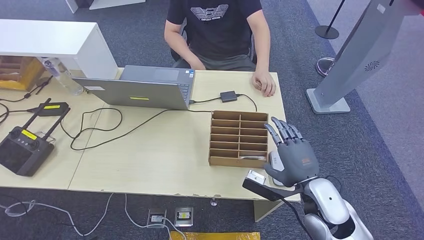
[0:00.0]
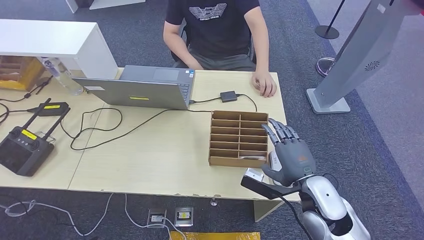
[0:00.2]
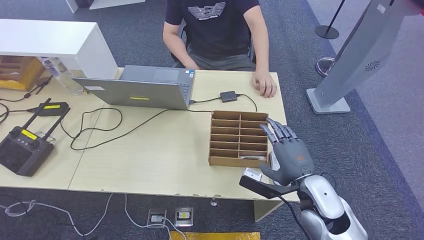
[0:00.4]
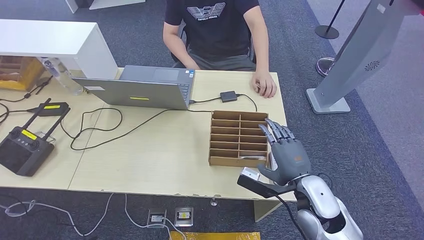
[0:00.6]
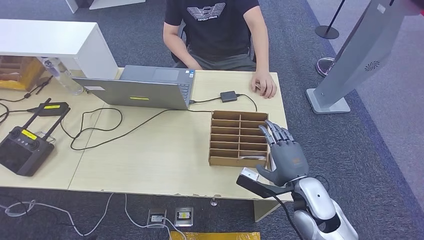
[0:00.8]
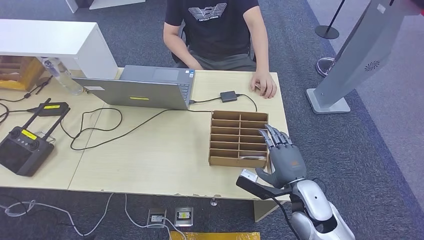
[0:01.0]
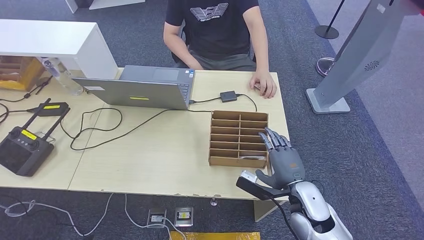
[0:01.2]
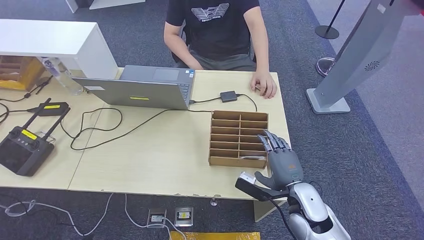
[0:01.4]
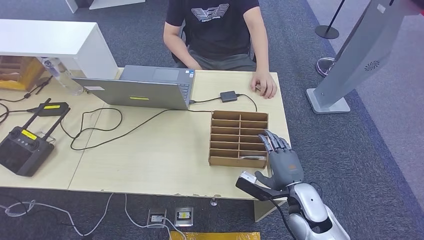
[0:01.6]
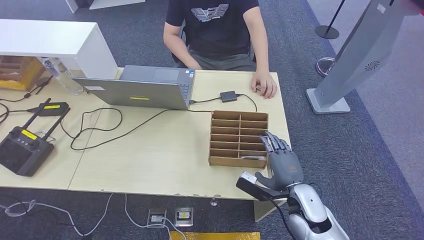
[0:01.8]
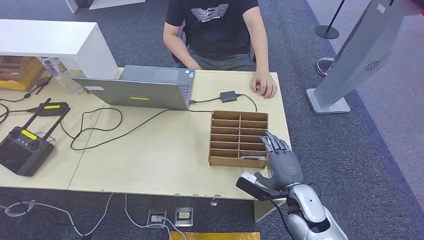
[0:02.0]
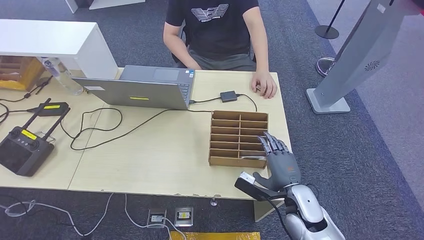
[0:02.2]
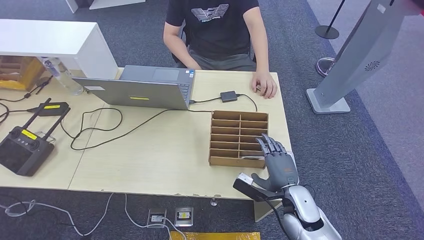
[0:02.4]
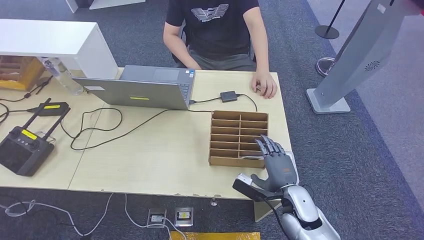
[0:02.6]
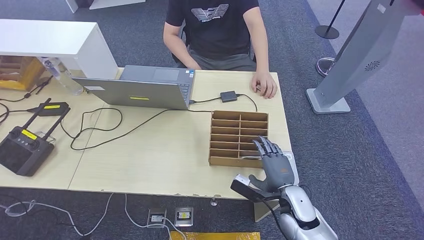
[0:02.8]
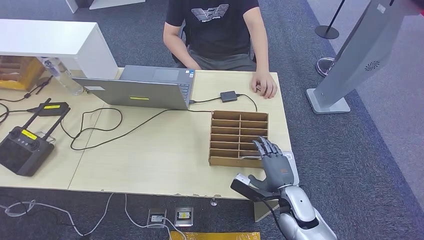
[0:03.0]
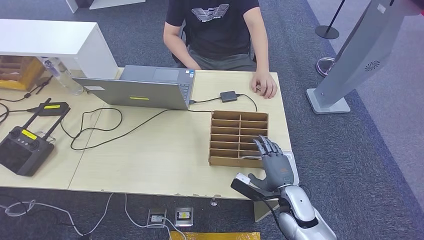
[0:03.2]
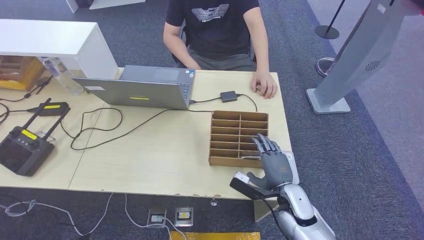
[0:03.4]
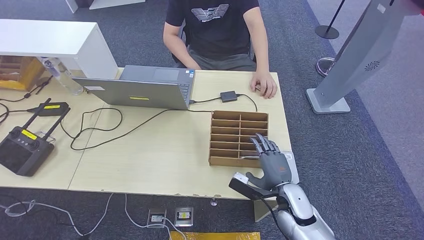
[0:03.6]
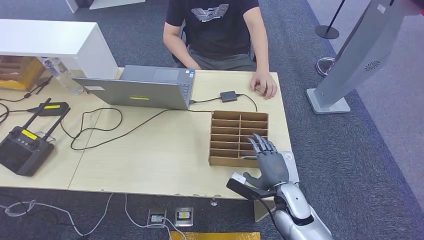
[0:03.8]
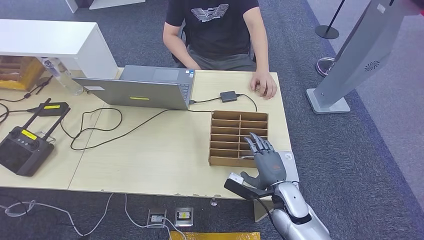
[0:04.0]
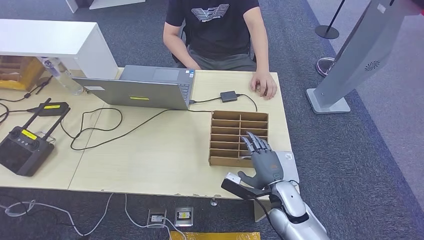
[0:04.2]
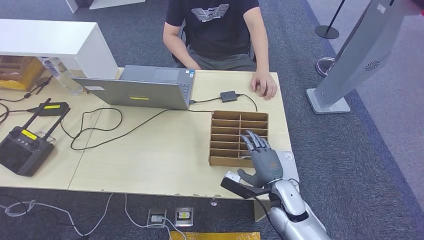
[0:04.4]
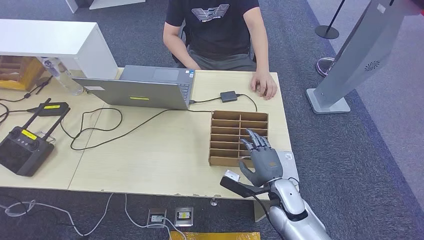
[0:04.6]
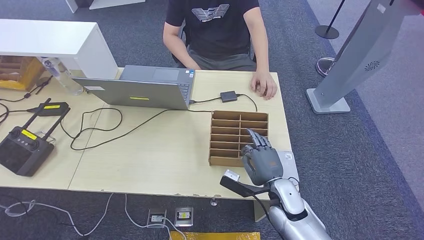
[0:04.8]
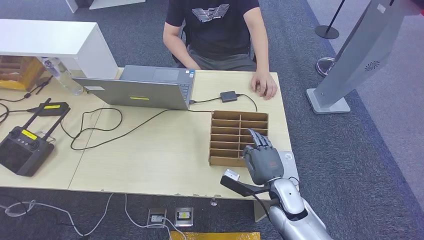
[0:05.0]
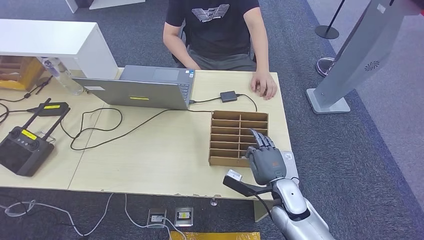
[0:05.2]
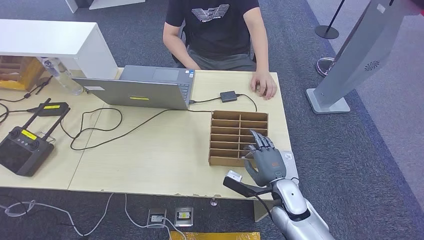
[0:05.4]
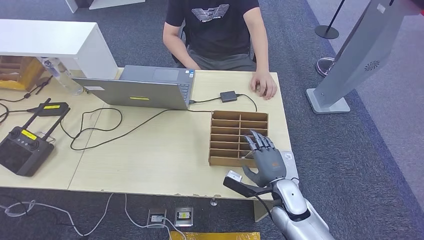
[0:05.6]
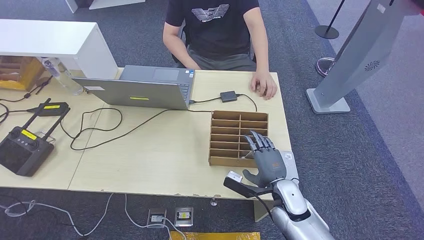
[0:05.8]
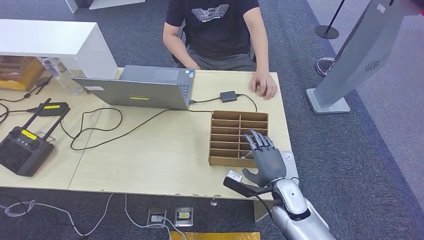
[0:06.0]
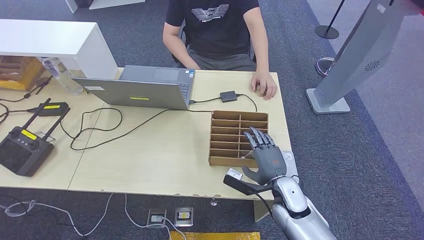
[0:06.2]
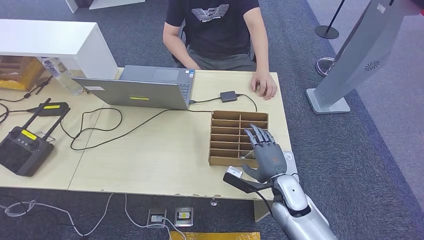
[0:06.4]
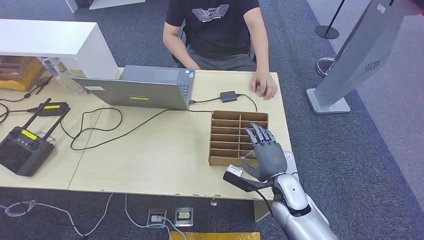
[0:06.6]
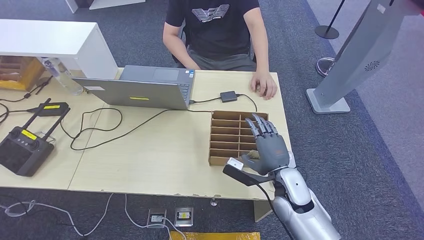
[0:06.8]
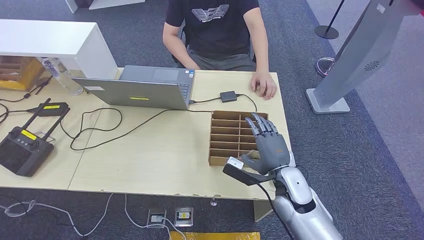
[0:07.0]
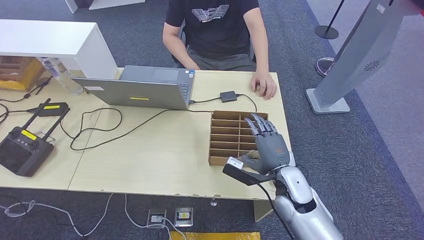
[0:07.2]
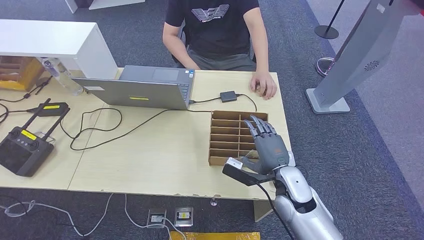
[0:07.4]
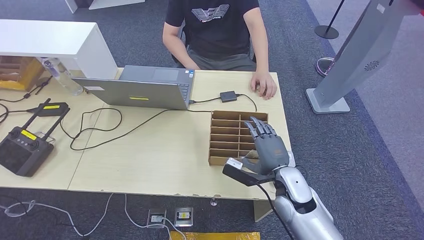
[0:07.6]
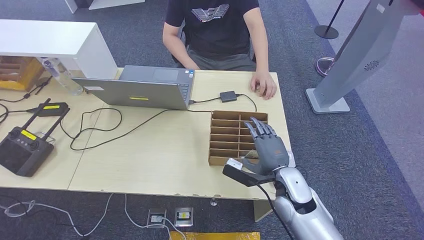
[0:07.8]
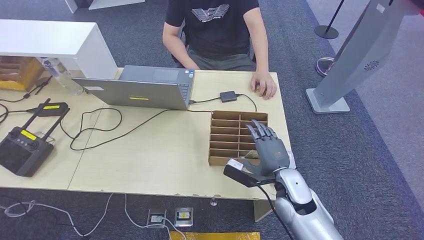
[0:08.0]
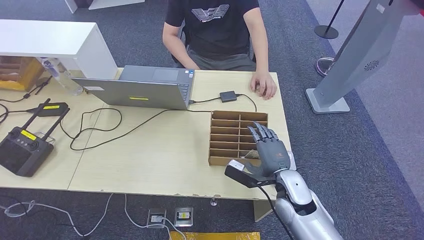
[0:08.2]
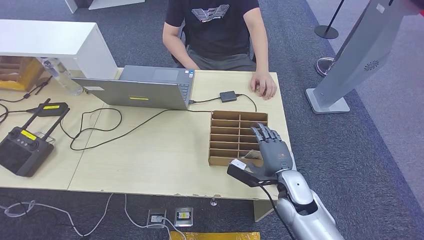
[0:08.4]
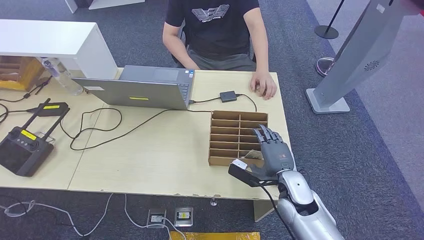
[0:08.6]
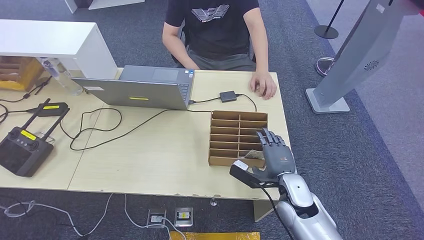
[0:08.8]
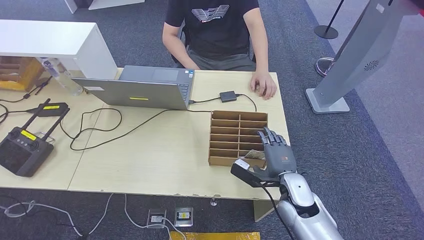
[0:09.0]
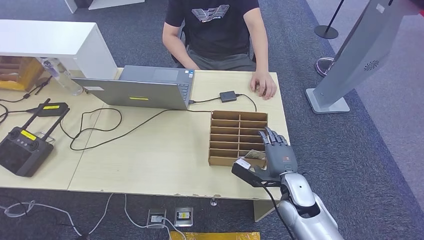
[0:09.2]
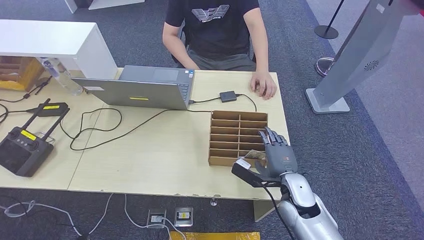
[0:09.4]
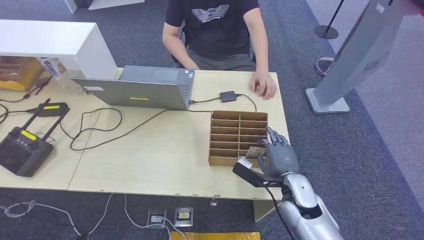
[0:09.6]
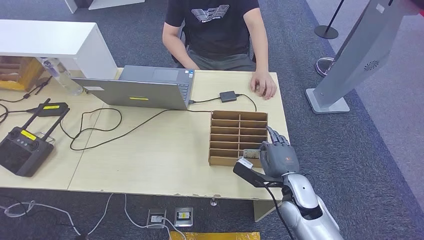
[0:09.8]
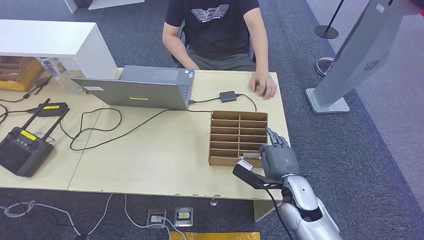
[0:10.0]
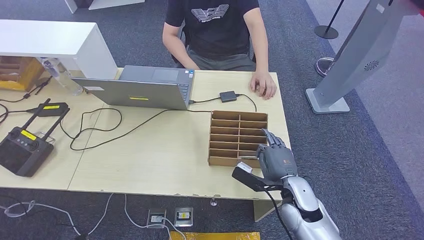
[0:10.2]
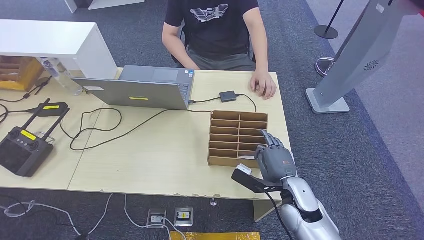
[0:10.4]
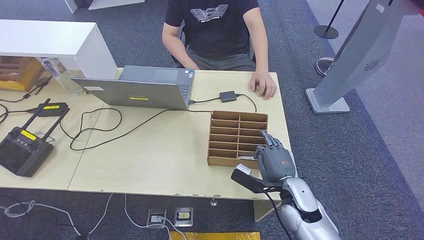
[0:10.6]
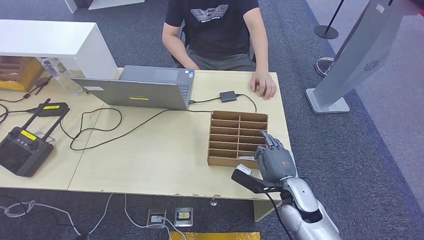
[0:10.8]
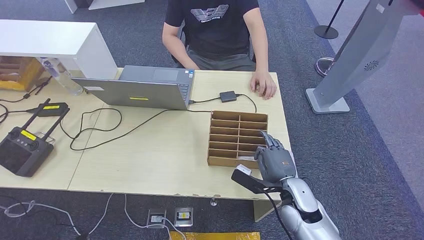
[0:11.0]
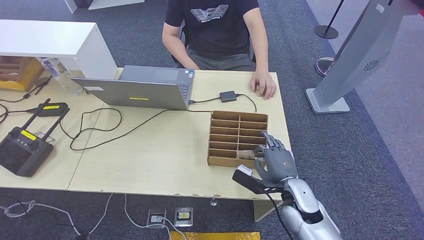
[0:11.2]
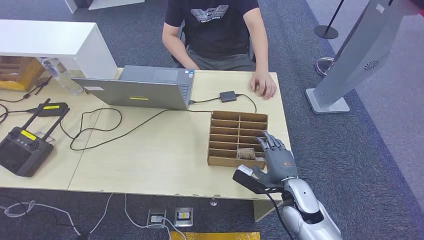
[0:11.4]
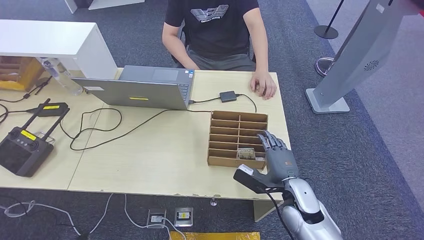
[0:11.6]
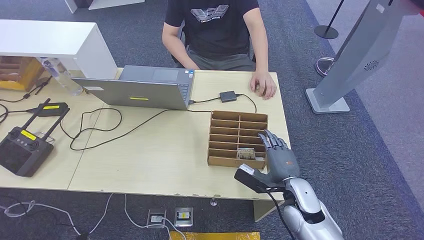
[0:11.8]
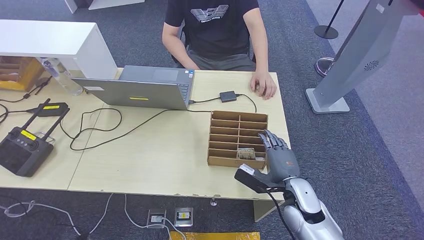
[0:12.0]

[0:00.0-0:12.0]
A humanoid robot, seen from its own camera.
0.0 to 1.6 s: The right hand travels downward by some 5 cm.
1.6 to 6.0 s: There are only small adjustments of the hands.
6.0 to 7.6 s: The right hand ends up some 5 cm from where it was.
7.6 to 10.4 s: The hands stay close to where they were, moving slightly.
10.4 to 12.0 s: The two hands keep their place.

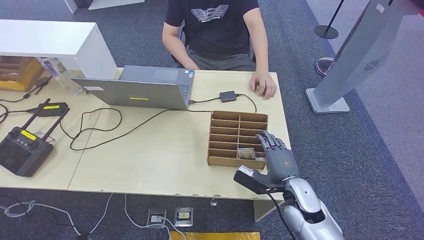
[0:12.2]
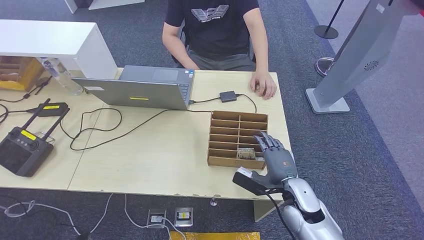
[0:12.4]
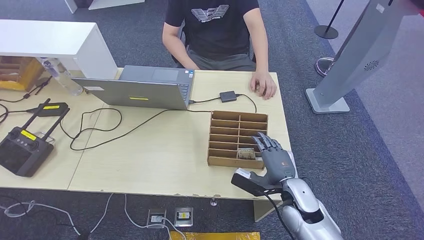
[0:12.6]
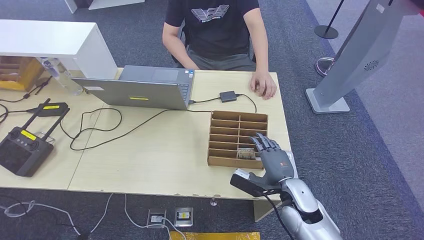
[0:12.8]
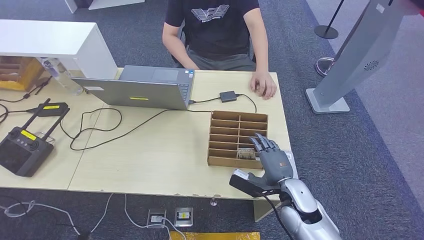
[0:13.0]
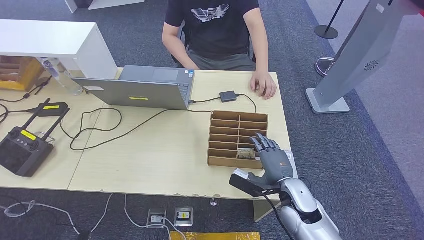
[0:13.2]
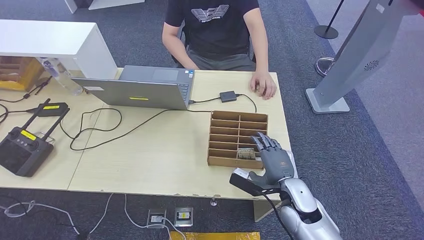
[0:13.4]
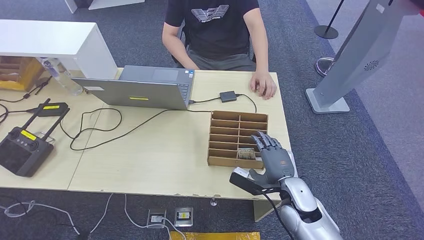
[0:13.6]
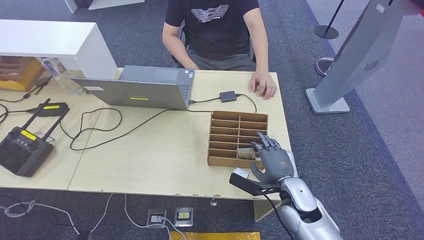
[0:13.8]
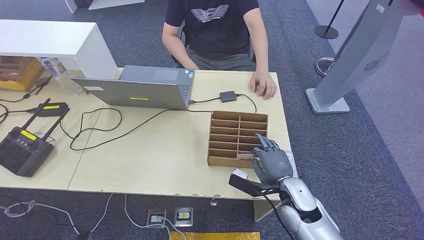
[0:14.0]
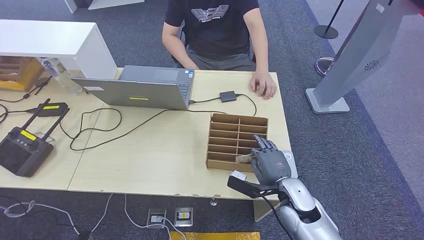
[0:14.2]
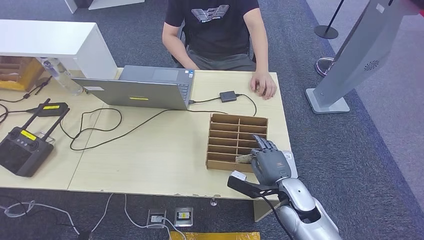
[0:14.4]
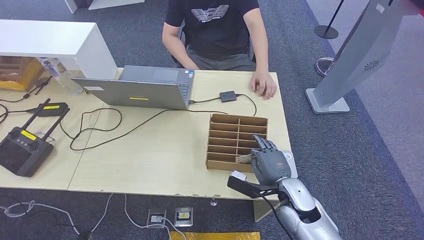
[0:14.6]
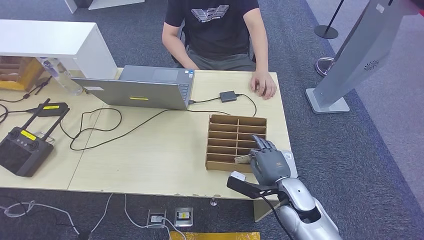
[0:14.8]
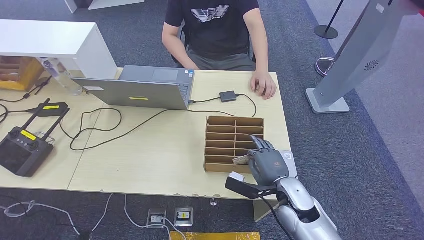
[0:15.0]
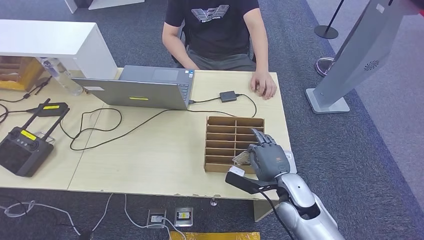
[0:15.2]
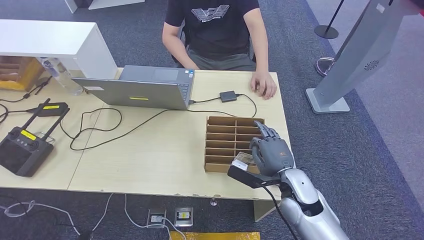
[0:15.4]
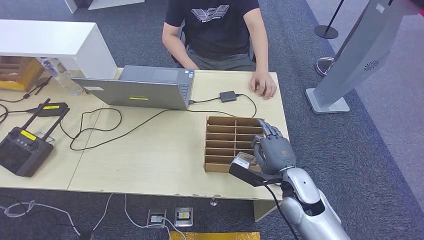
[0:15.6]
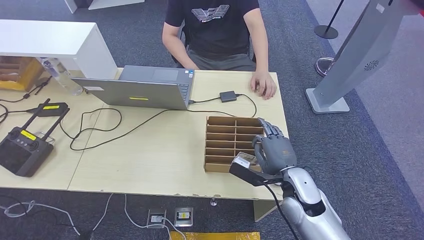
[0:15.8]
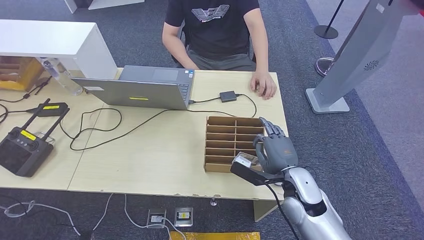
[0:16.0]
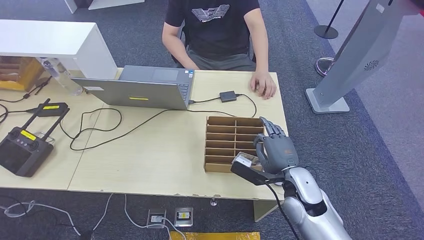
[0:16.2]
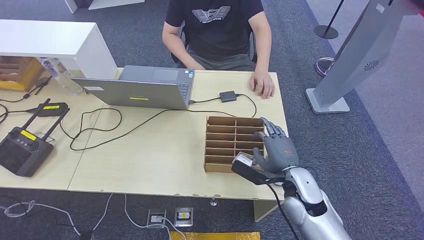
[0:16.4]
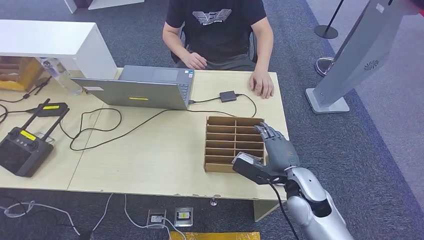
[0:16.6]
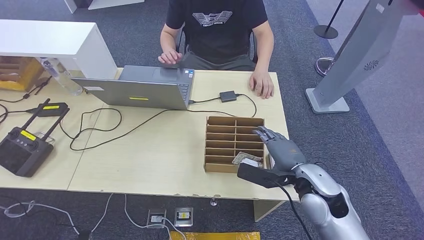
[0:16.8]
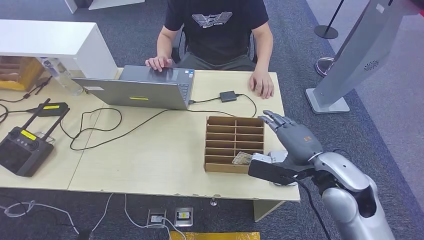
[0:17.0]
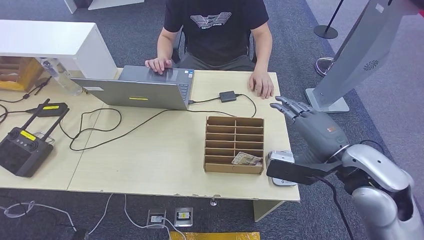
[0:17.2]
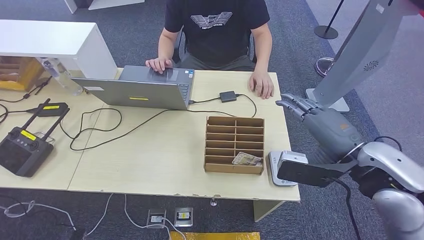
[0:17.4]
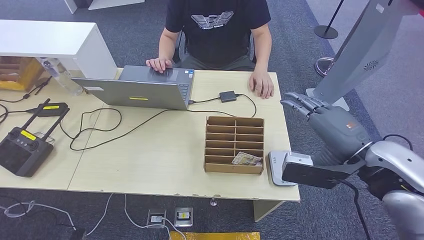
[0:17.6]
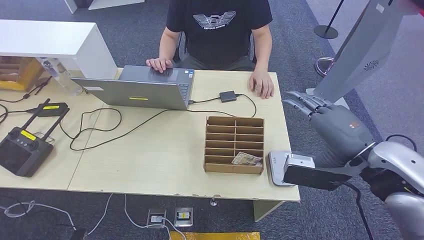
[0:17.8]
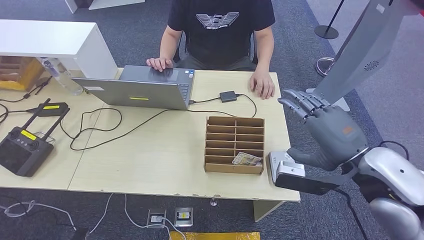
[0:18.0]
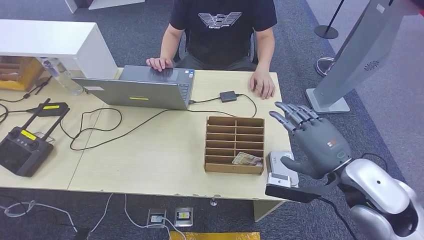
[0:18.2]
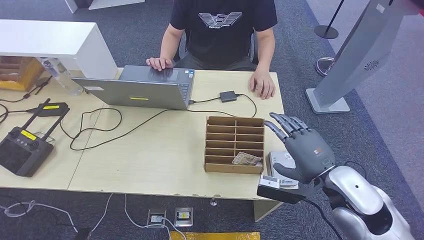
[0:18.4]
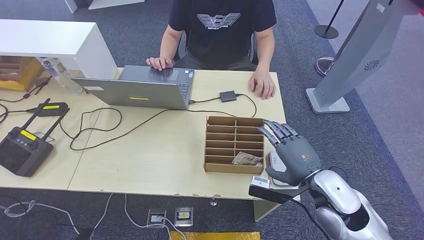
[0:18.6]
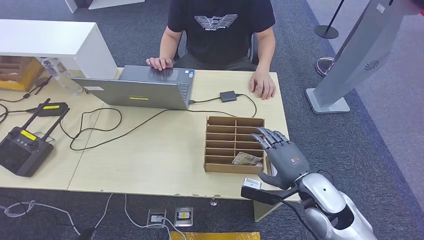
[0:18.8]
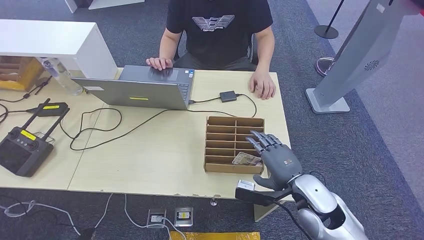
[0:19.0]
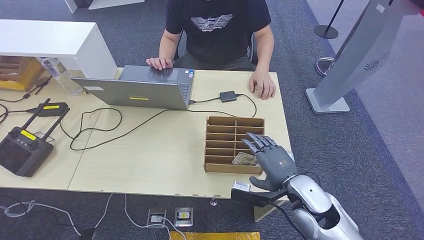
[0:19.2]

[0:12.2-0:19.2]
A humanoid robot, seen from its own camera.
12.2 to 13.6 s: Both hands stay about where they are.
13.6 to 16.4 s: The hands make only small movements.
16.4 to 17.8 s: The right hand moves upward and to the right, approximately 20 cm.
17.8 to 19.2 s: The right hand moves downward, approximately 20 cm.
